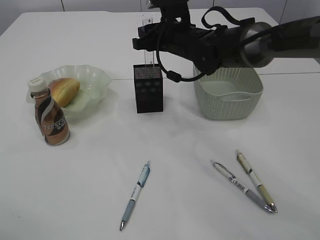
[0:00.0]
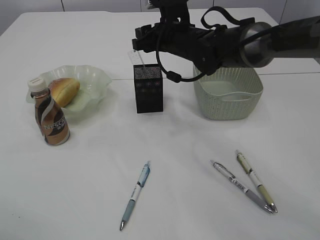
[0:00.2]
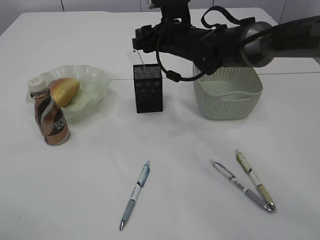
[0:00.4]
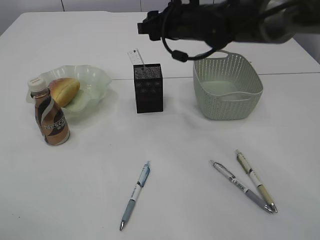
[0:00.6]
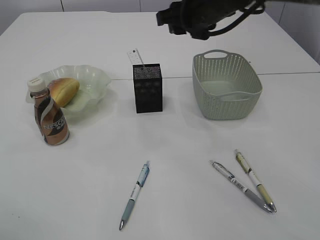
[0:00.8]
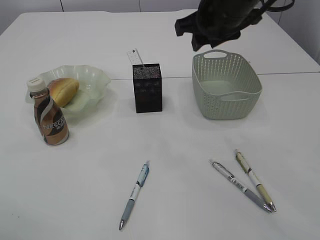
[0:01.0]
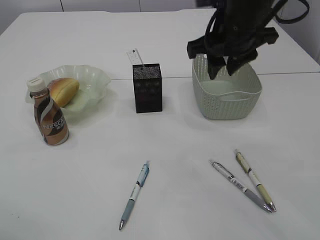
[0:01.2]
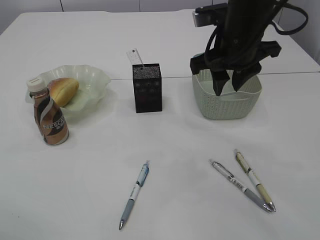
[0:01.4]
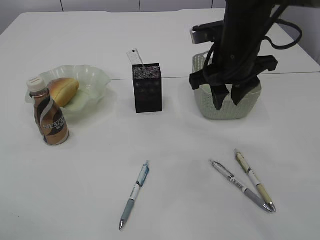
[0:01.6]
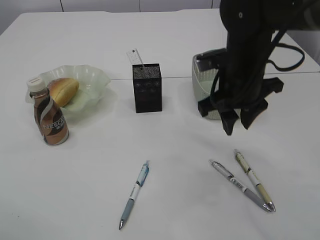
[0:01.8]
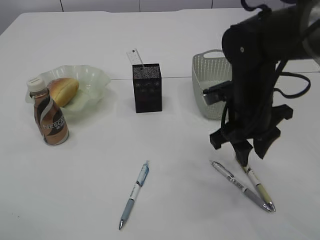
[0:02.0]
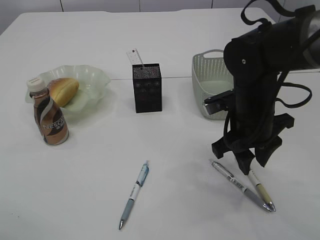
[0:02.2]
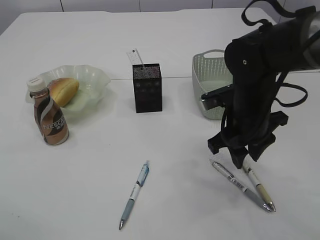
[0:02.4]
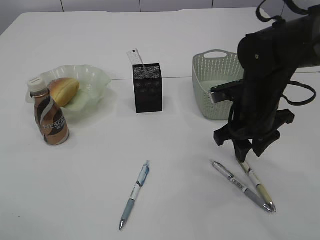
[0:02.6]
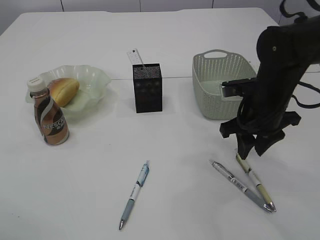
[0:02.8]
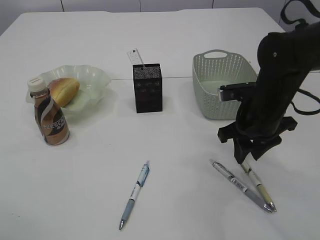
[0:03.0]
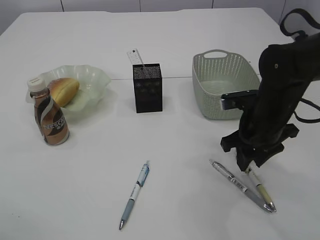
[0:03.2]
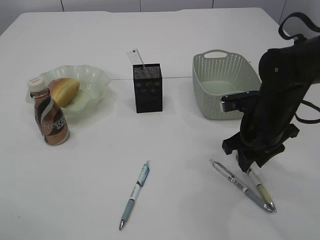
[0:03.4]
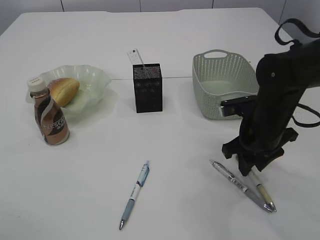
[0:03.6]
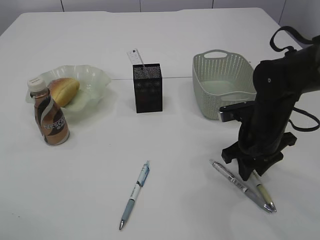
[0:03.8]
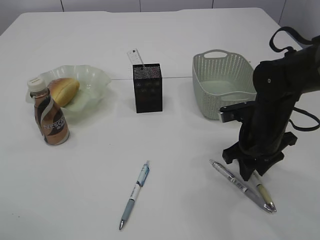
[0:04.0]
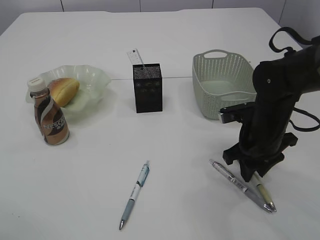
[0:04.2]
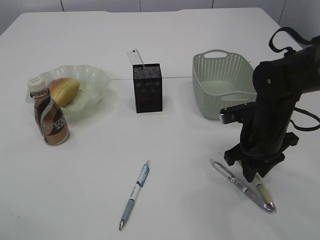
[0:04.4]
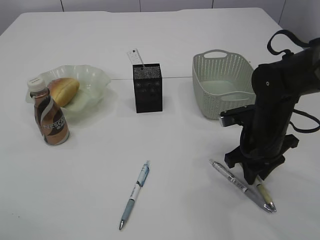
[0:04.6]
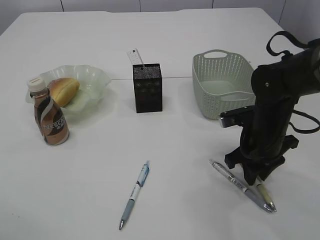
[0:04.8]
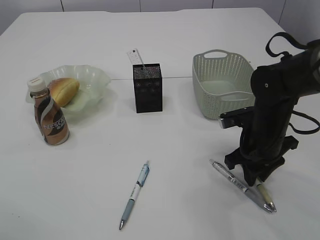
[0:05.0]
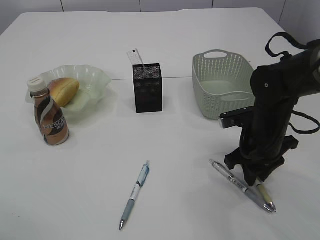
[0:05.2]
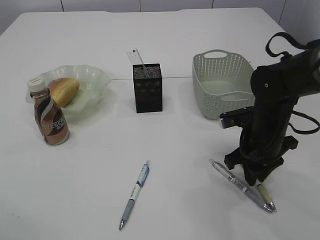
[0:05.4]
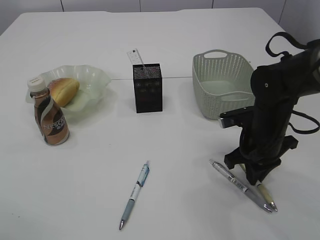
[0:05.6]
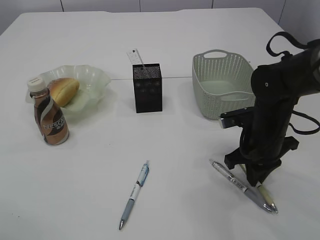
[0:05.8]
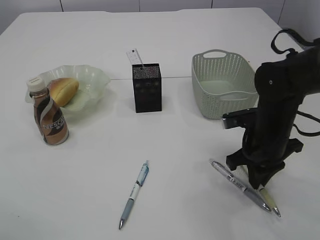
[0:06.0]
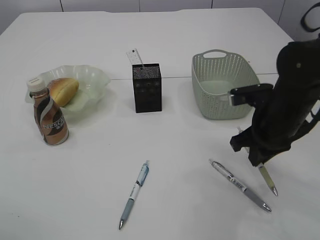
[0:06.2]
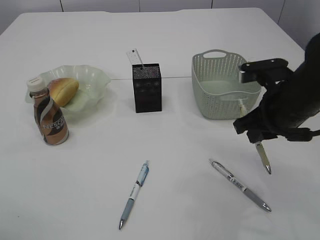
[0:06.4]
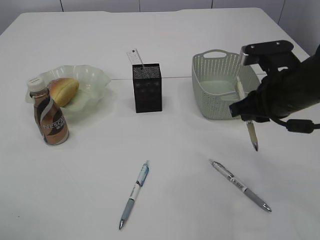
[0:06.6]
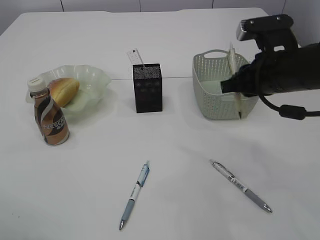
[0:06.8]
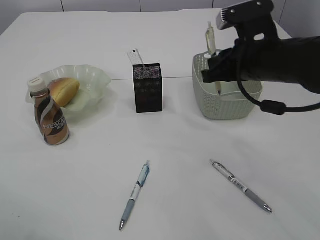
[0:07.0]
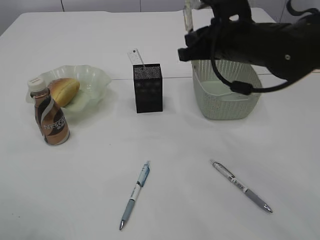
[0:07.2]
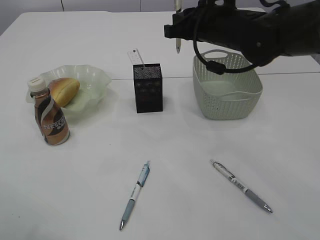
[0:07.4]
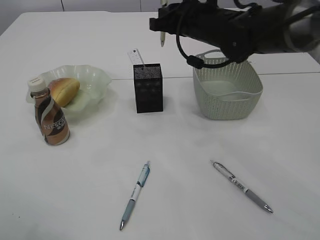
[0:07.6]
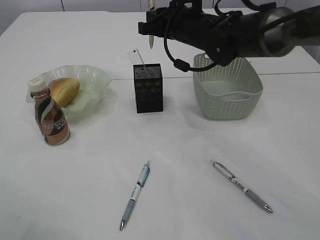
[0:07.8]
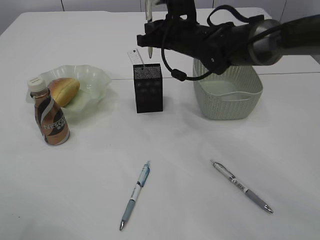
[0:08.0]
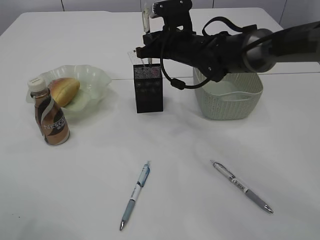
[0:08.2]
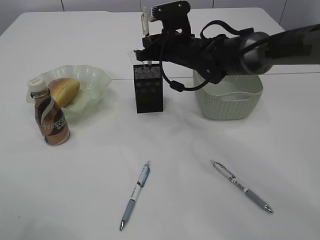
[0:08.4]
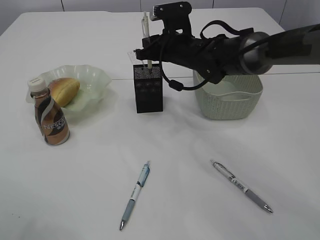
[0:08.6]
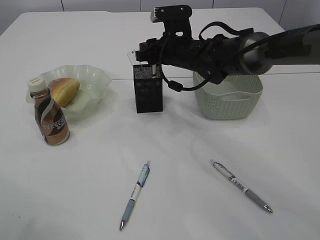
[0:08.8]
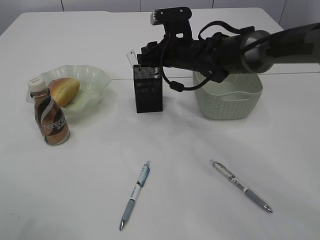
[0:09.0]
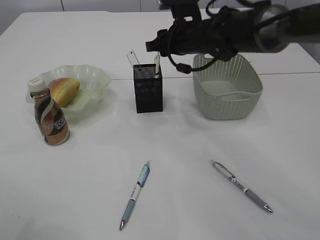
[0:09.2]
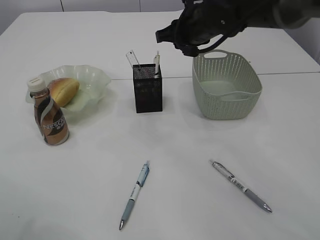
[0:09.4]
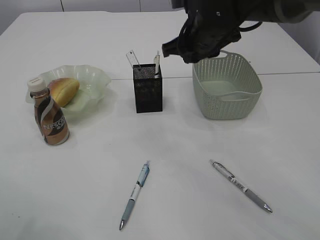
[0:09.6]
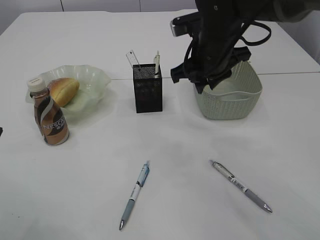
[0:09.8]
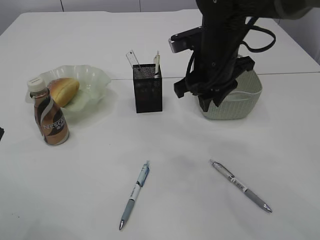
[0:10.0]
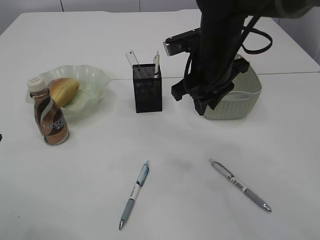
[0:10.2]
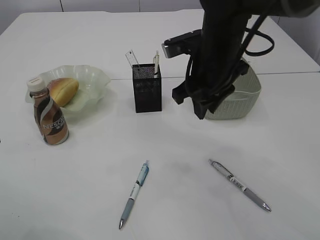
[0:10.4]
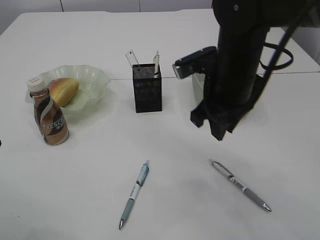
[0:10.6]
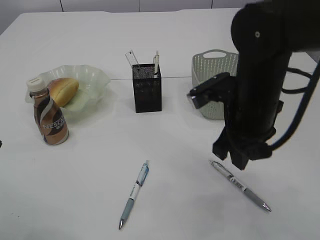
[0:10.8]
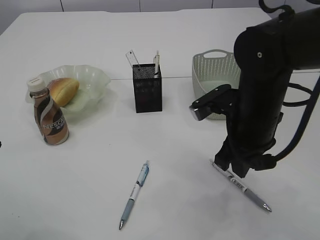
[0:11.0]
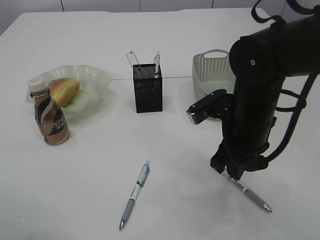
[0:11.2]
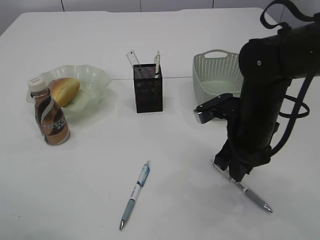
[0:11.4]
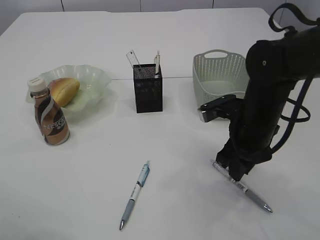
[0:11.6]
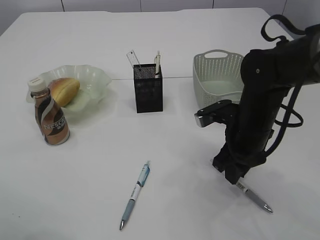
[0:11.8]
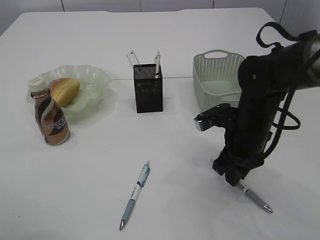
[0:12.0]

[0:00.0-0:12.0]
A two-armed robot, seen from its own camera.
Step, 0:00.8 to 0:06.2: Pick up the pen with right arm.
Step, 0:06.4 to 0:09.4: Place the pen into the pen holder.
0:00.0 to 0:01.6: The right gripper is displaced backward and to the right by some 15 cm.
0:01.6 to 0:03.0: The right gripper goes roughly 10 cm downward and to the right.
0:03.0 to 0:04.4: The grippers move only a little.
0:04.4 to 0:06.0: Neither gripper changes place.
0:06.0 to 0:07.6: The right gripper moves upward, forward and to the left, approximately 20 cm.
0:07.6 to 0:09.0: The right gripper heads downward, covering roughly 5 cm, and opens.
0:09.0 to 0:10.4: The right gripper travels backward and upward by approximately 15 cm.
0:10.4 to 0:12.0: The right gripper travels downward and to the right by roughly 15 cm.

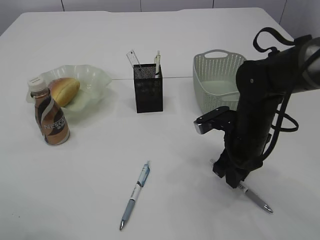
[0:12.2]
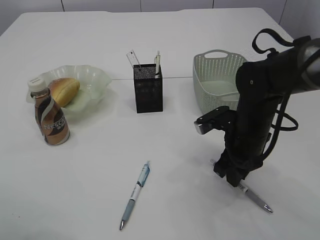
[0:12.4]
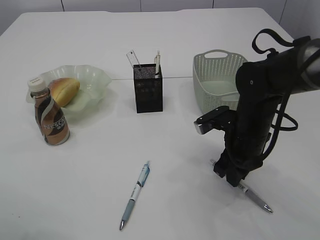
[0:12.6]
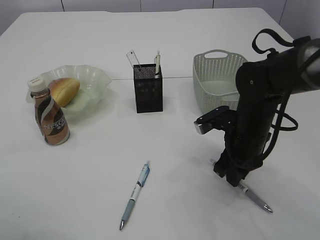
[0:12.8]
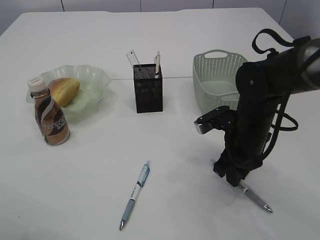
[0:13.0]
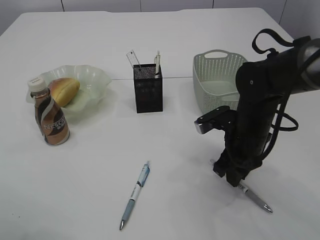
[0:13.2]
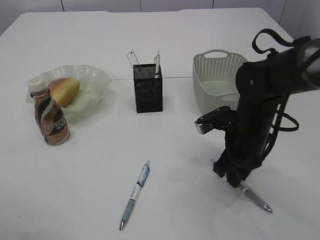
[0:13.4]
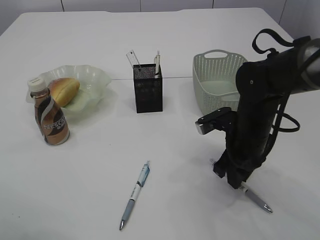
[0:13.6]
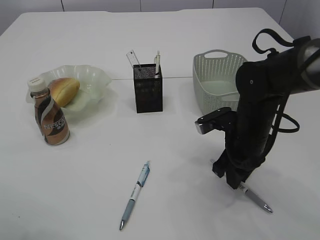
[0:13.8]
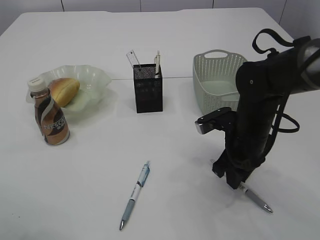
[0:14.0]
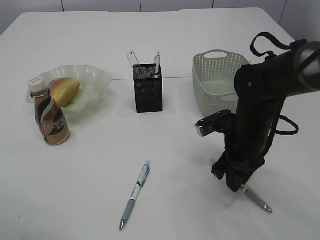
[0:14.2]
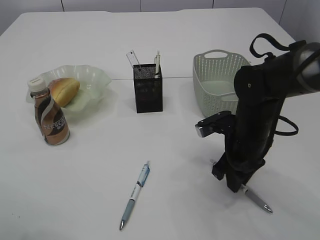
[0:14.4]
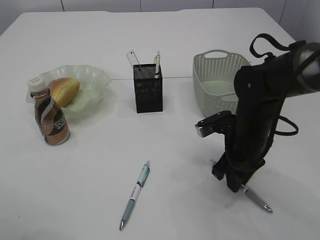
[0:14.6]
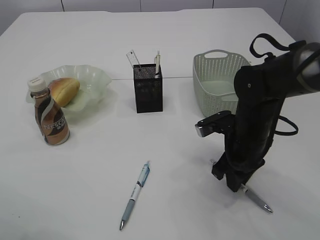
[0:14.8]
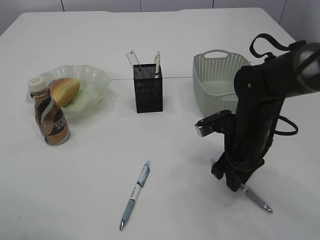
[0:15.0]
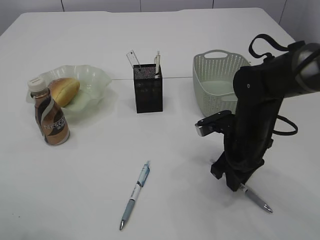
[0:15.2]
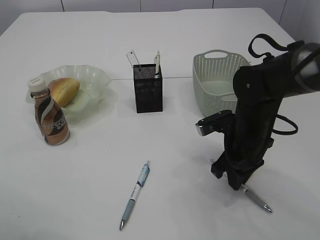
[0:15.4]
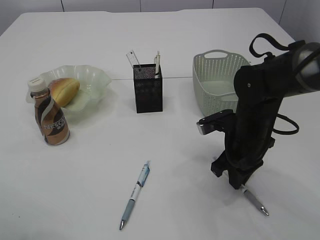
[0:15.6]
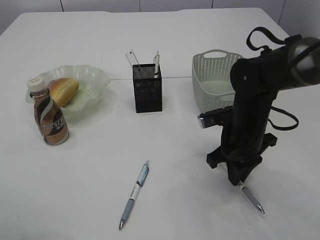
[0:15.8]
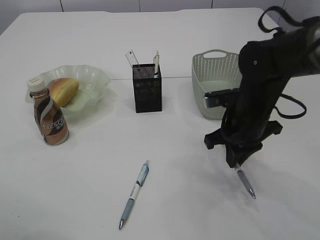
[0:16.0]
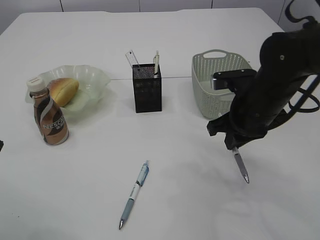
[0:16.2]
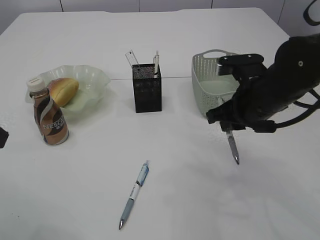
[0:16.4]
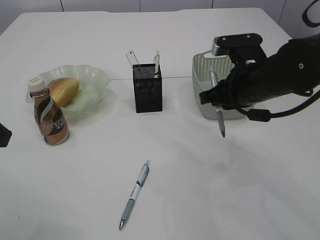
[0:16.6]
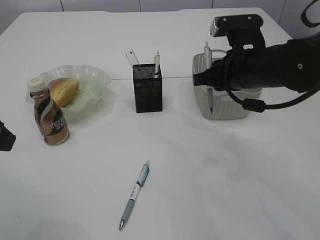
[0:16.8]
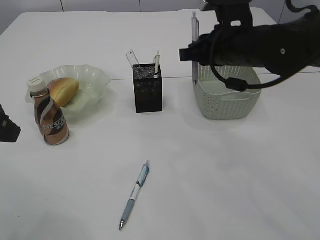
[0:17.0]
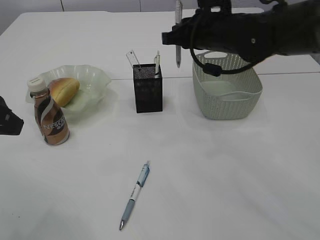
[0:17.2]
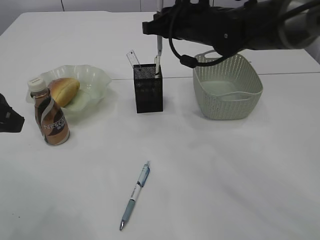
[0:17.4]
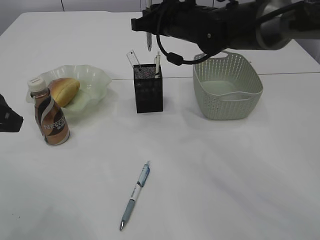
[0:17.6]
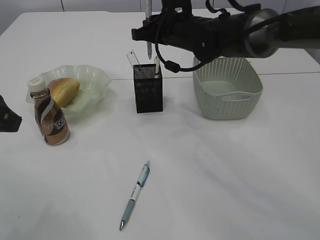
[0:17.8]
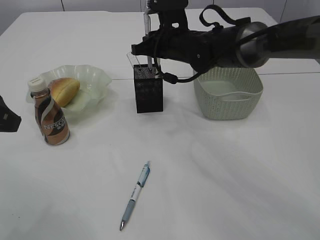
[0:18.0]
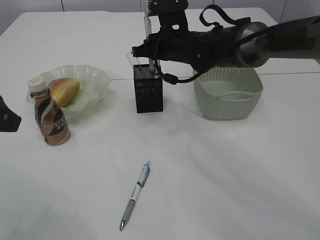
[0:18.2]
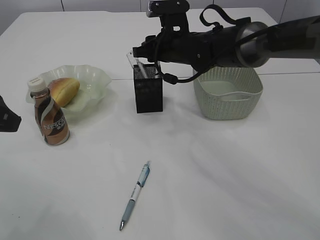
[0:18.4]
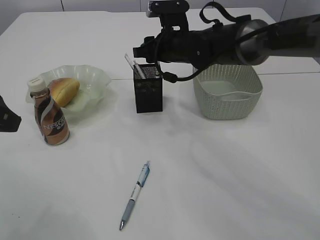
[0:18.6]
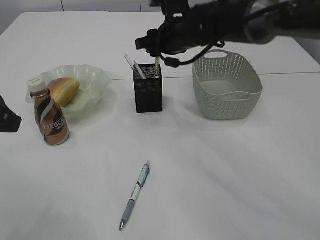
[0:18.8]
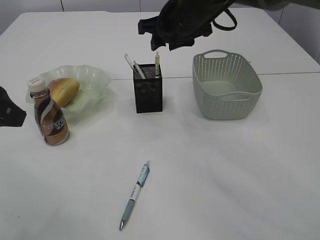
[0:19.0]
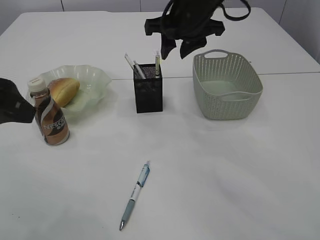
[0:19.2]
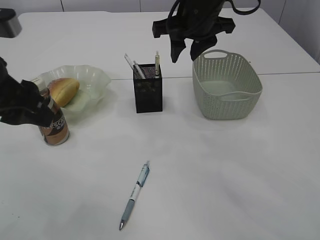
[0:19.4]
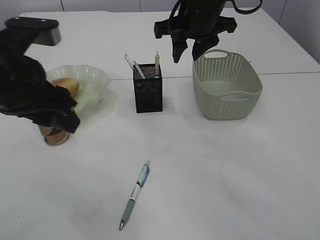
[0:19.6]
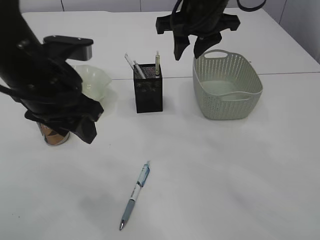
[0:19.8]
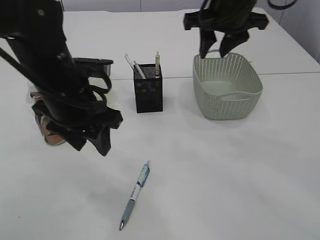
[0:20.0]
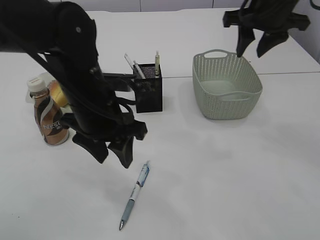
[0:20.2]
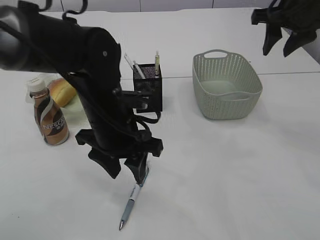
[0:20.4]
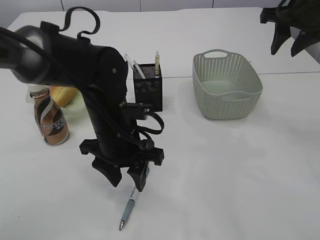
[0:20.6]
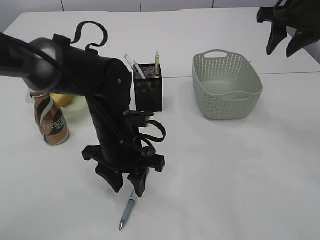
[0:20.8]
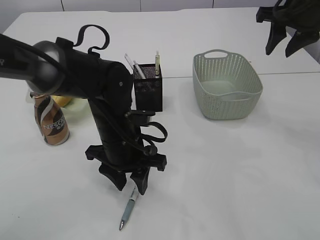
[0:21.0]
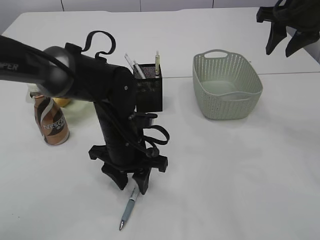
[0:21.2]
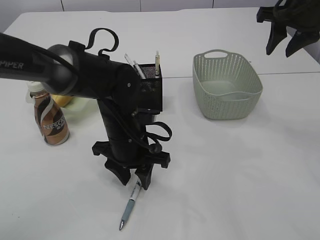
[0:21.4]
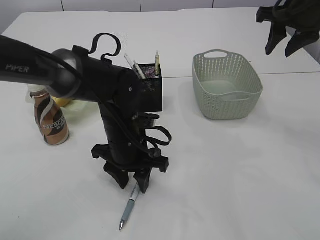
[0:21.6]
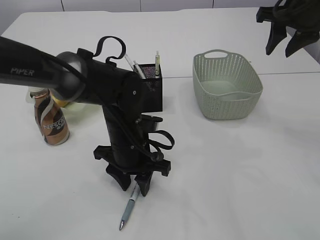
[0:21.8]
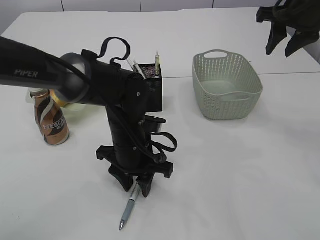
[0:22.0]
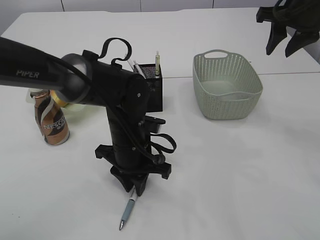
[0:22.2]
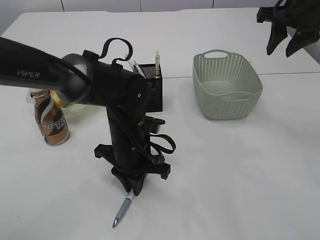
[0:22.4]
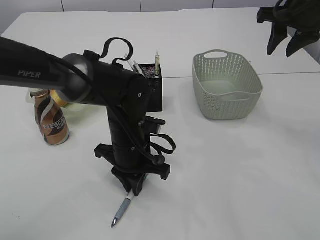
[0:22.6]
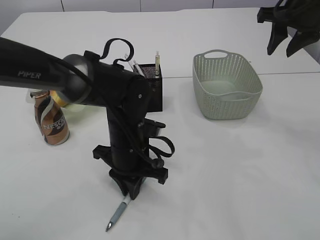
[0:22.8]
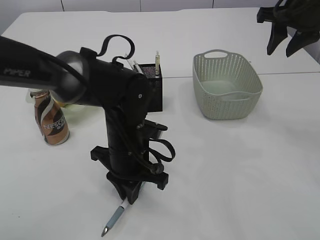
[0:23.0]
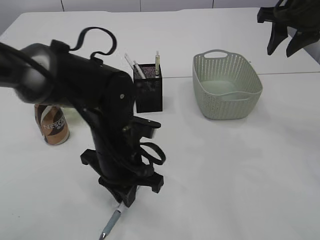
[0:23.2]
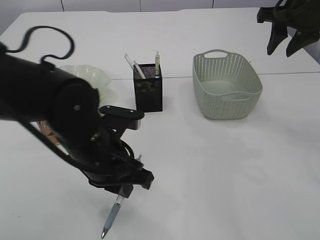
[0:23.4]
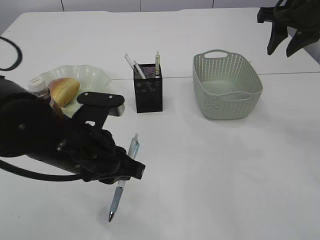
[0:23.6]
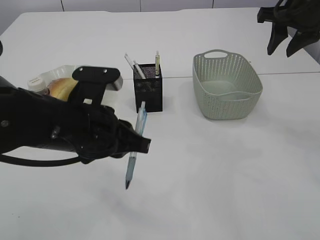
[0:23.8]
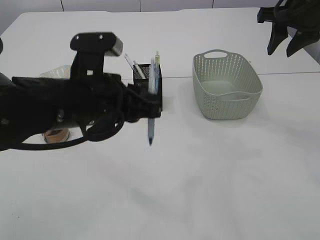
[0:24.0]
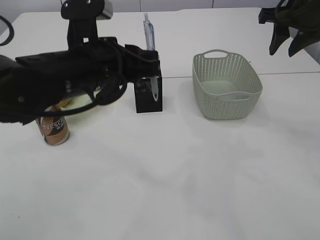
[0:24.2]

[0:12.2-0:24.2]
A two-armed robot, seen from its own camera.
Step, 0:12.2 to 0:16.2: Pick up the pen with right arm.
Step, 0:16.4 to 0:18.8: Place the pen into the pen holder.
Step, 0:19.0 to 0:23.6: Pick up the pen with left arm.
0:12.2 to 0:13.8: The two grippers keep their place.
0:13.8 to 0:15.2: The two grippers keep their place.
0:15.2 to 0:16.6: The right gripper goes roughly 10 cm upward.
0:16.6 to 0:18.2: The right gripper travels forward and to the left by some 15 cm.
0:18.2 to 0:19.8: The left gripper moves to the right and forward, some 10 cm, while the right gripper shifts some 10 cm upward and backward, and opens up.
0:19.8 to 0:21.2: The left gripper goes approximately 15 cm downward and to the right. The right gripper travels to the right by approximately 15 cm.
0:21.2 to 0:22.6: The left gripper closes.
0:22.6 to 0:24.2: The left gripper heads upward, covering roughly 15 cm.
